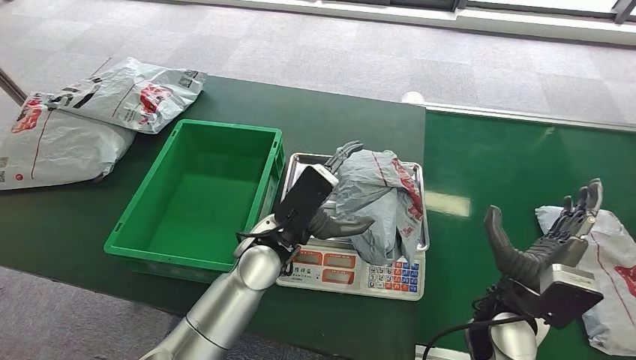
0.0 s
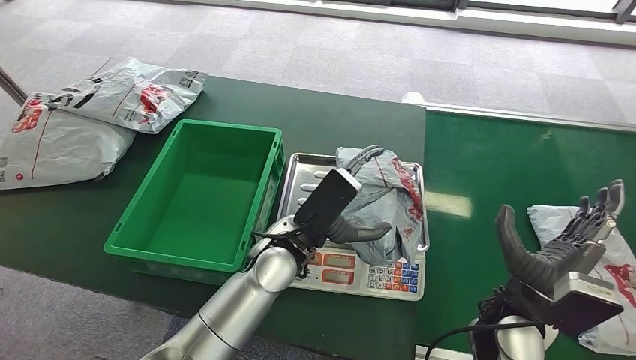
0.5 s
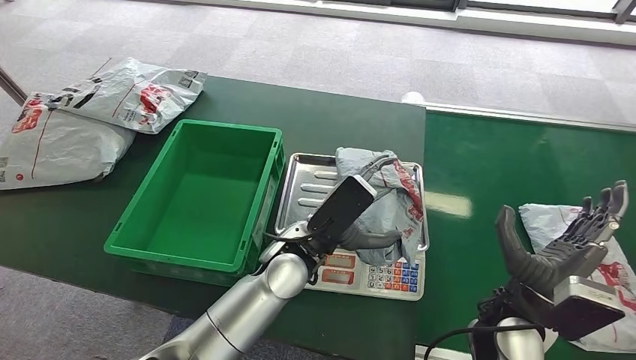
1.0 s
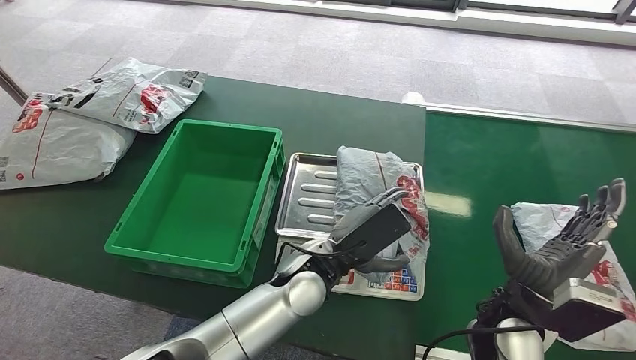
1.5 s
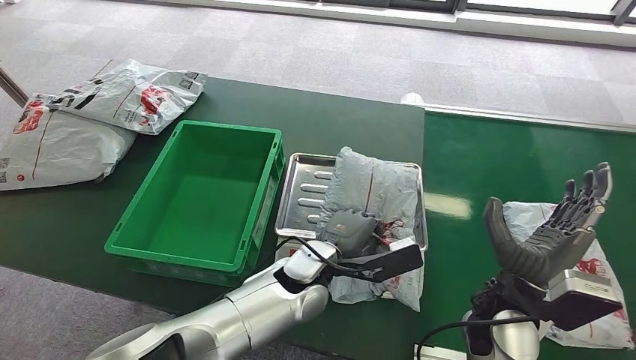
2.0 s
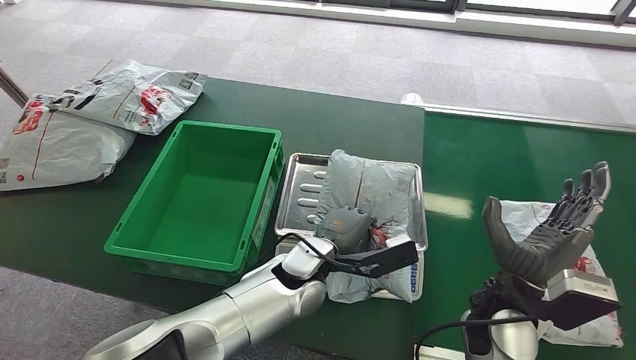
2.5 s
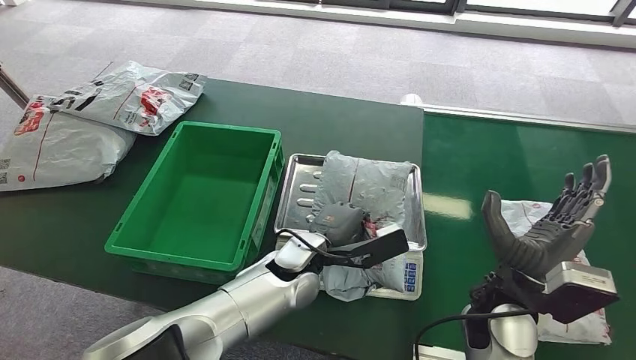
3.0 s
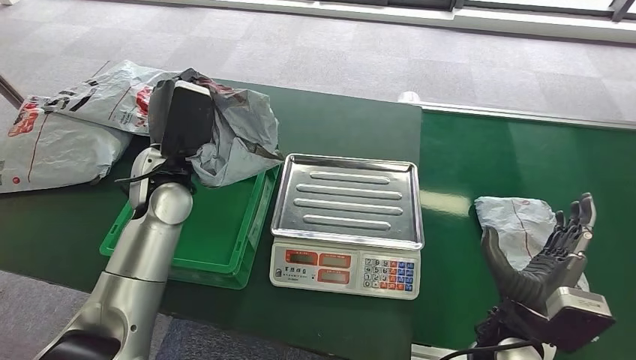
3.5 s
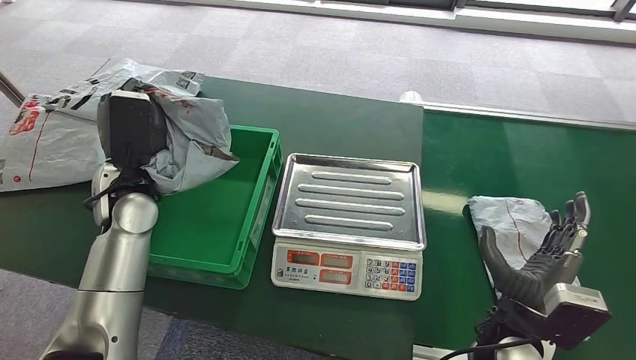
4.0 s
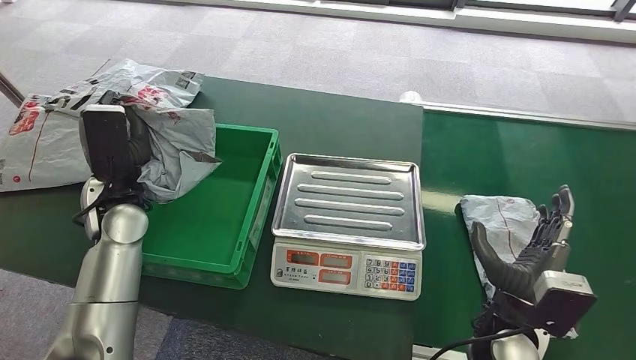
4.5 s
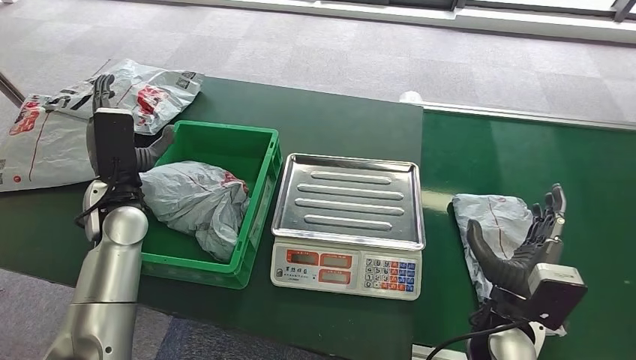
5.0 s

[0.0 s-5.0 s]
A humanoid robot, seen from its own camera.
Step, 0.5 to 4.0 s: Pick up the package from the inbound machine.
Step, 4.5 to 5.0 s: Place the package into the parcel locker.
